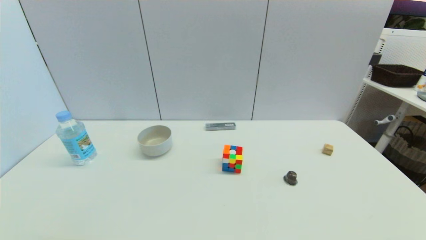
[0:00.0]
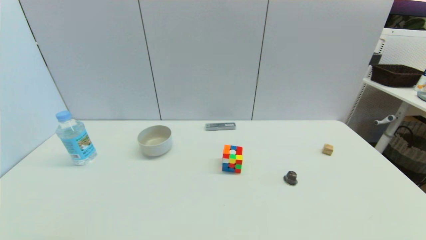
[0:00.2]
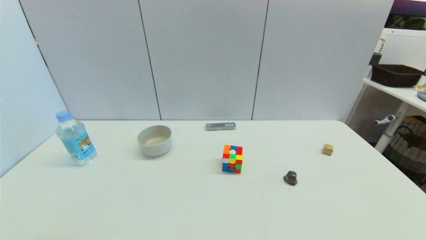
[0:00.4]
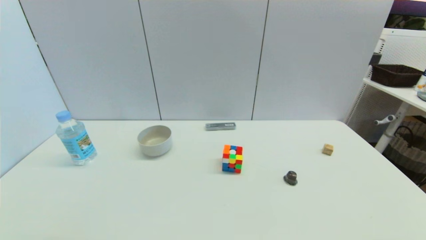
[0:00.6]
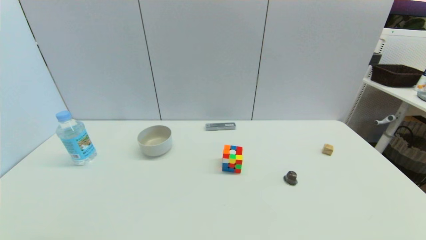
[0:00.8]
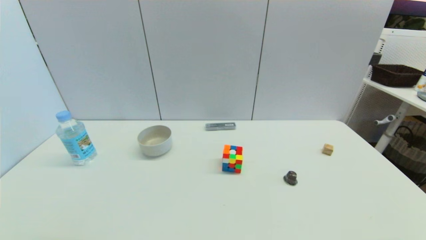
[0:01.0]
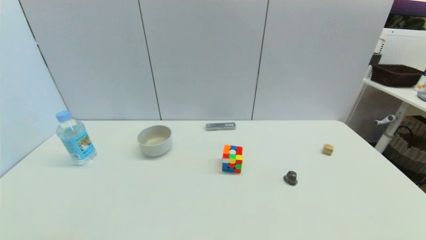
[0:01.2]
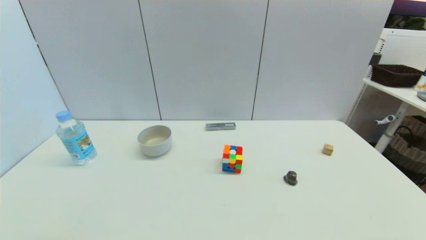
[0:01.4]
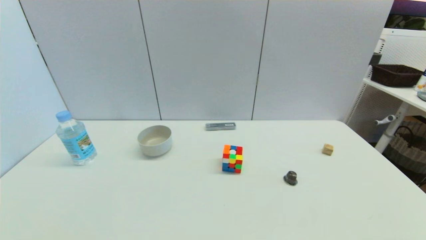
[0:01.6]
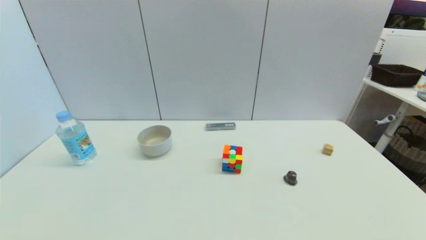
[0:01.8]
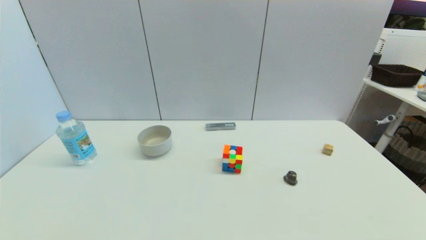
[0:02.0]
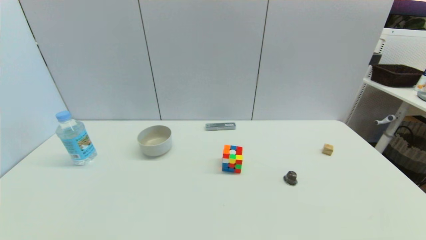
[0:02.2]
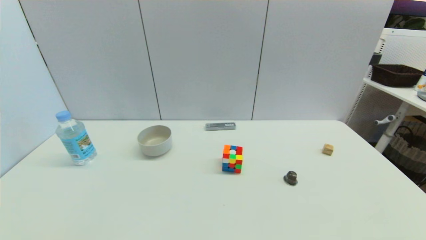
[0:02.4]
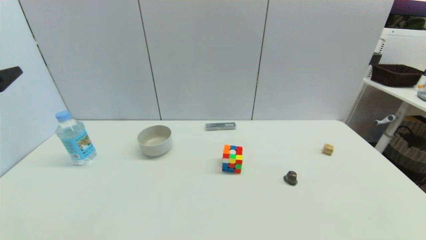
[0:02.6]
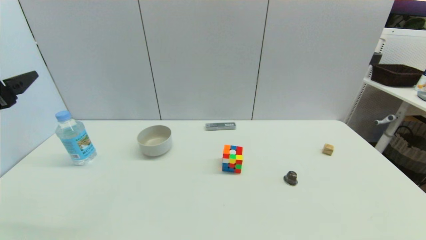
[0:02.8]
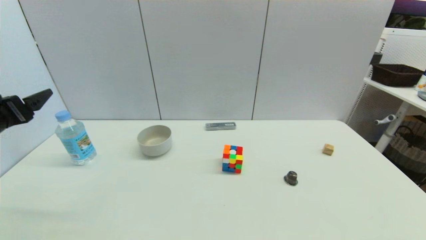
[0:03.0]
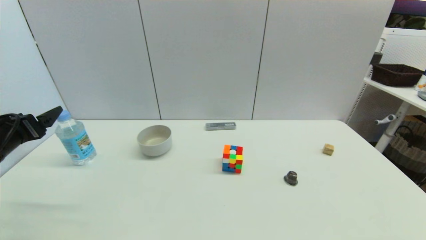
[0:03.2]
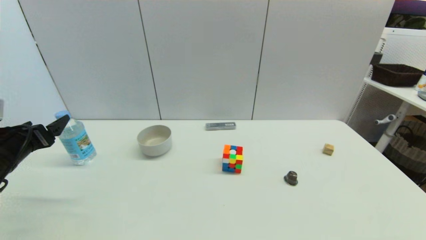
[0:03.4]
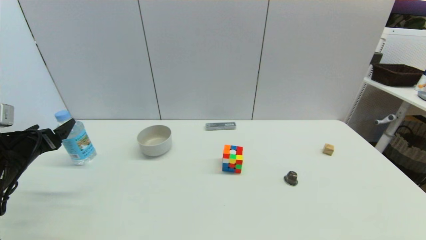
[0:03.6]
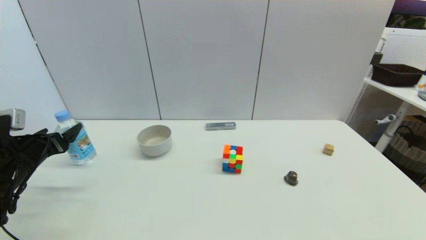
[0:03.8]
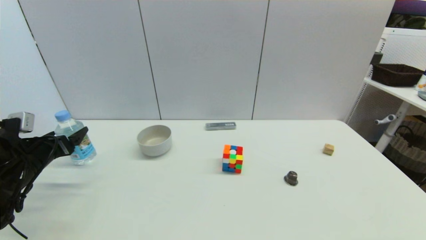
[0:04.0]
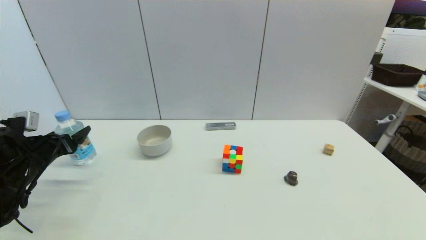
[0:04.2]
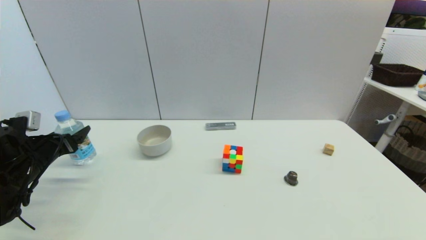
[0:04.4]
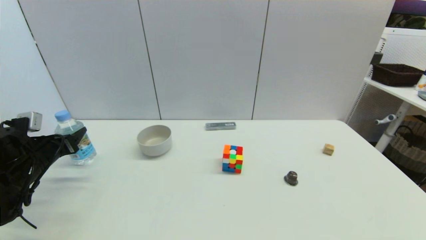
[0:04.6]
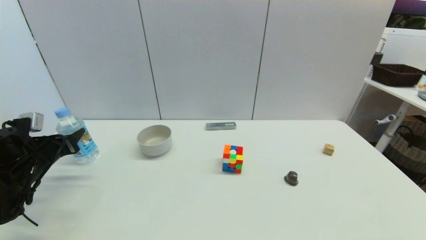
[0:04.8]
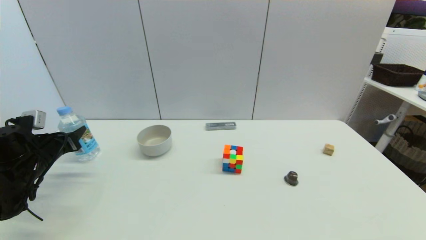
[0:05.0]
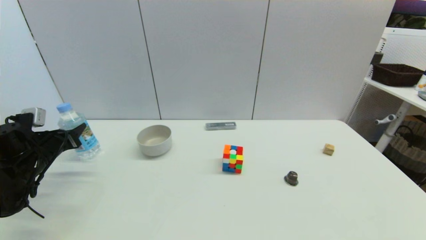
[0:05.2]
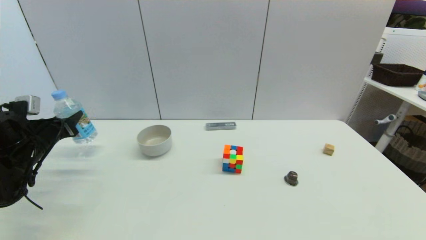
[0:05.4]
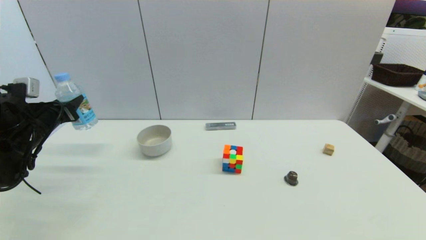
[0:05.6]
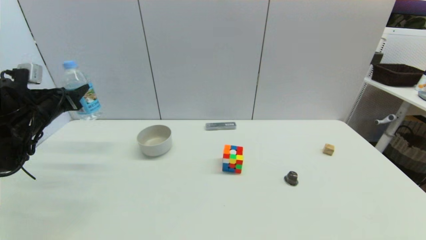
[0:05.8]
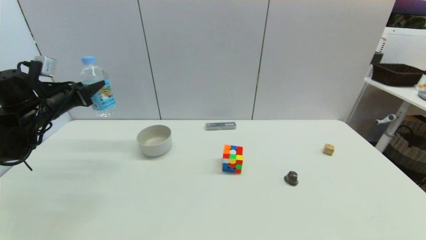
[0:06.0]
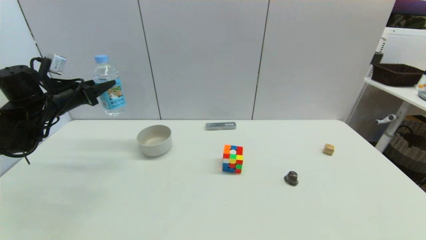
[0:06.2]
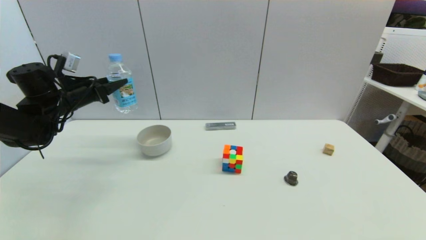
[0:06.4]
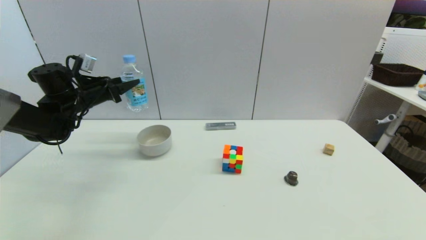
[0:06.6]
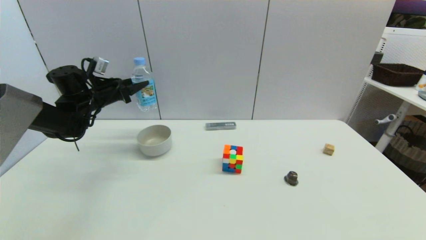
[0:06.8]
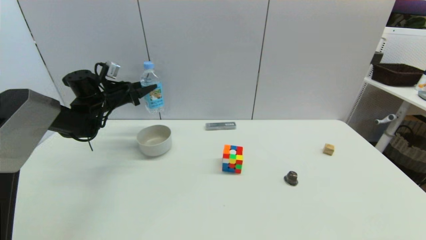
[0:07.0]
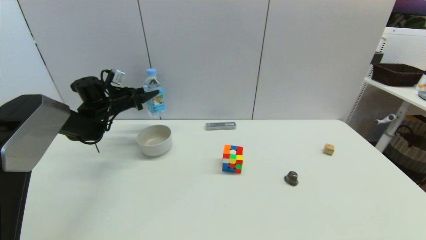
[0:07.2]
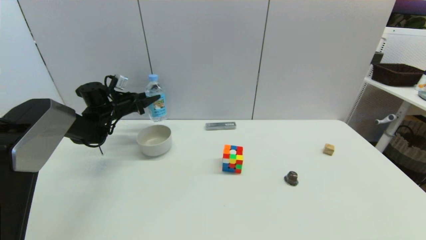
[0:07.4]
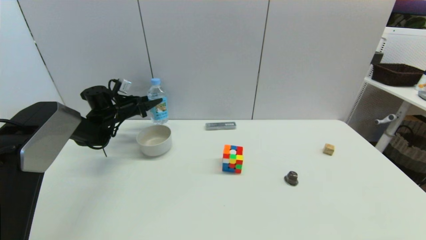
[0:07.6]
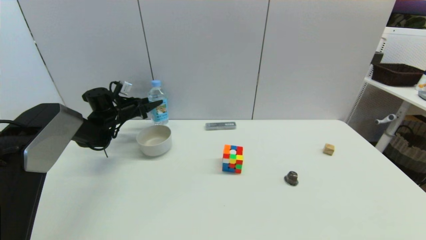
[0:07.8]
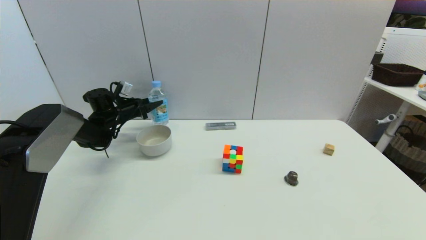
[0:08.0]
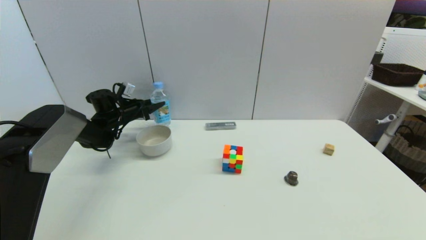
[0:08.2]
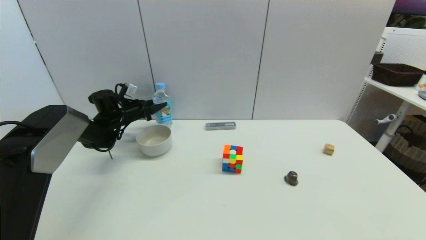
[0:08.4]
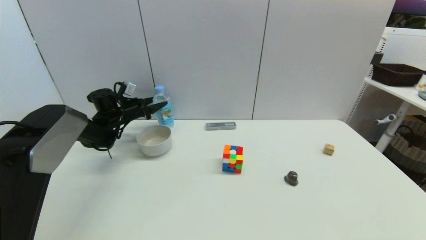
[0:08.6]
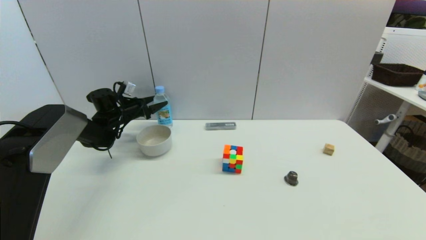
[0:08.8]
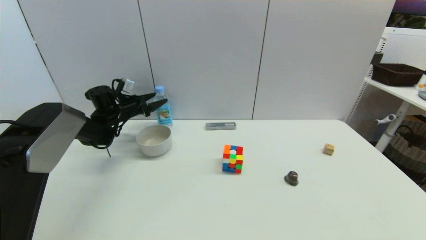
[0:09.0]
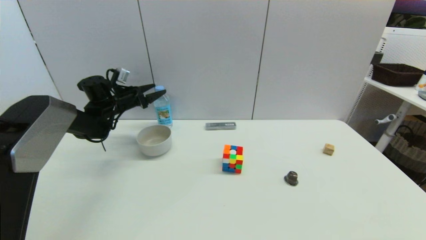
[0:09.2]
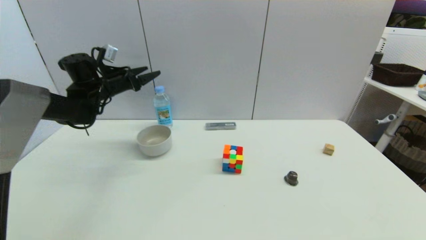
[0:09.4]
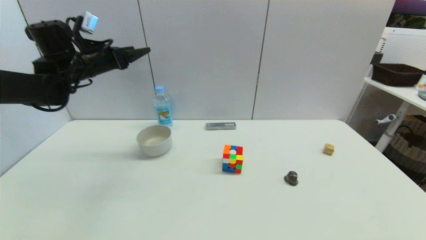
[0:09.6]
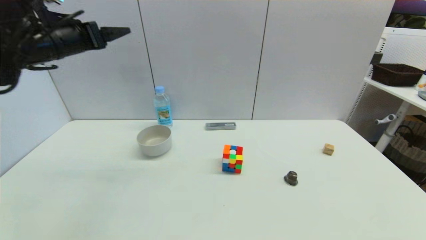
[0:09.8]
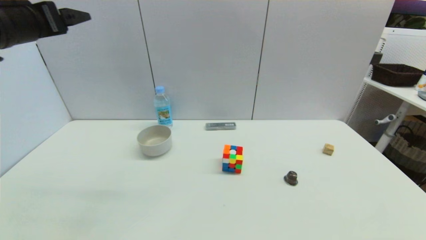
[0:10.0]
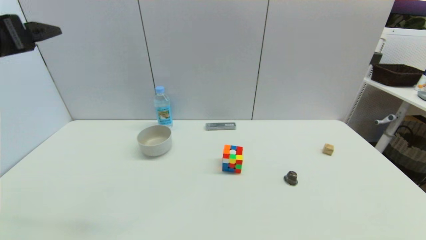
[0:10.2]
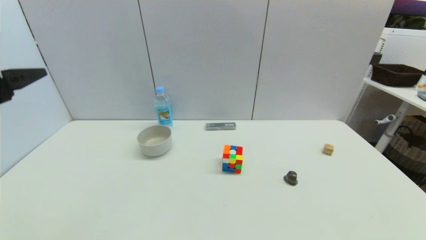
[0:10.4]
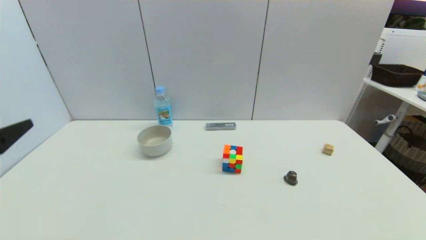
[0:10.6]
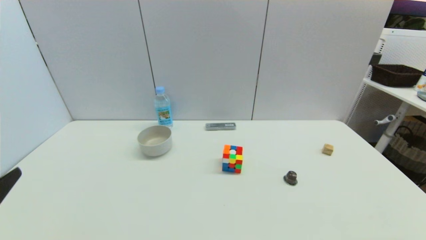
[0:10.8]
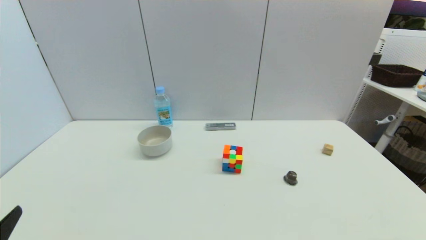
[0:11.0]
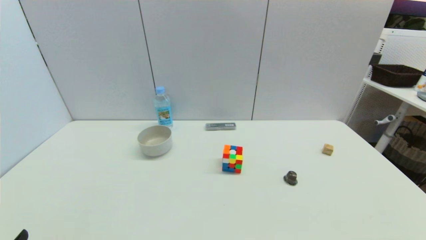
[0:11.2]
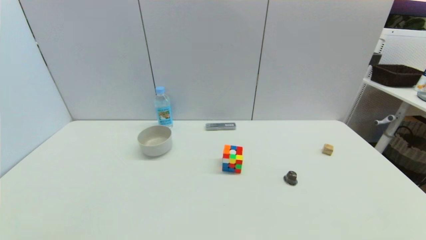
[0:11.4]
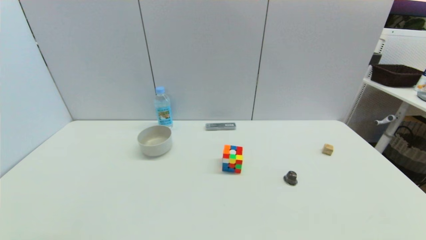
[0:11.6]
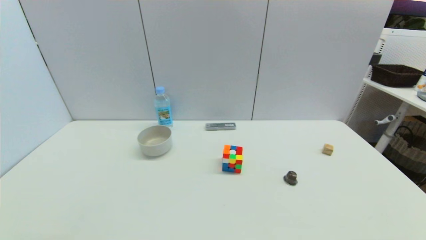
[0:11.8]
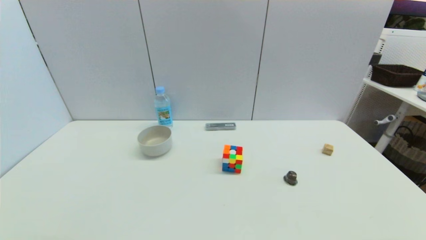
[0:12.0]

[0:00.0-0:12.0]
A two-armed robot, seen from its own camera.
Step, 0:01.6 to 0:04.8: Grasp the soda water with left gripper.
Step, 0:05.0 to 0:08.8: Place the soda water on the table with left gripper.
0:01.6 to 0:03.0: The left gripper travels forward and upward by some 25 cm.
0:03.0 to 0:04.4: The left gripper goes roughly 15 cm downward and forward.
0:04.4 to 0:06.0: The left gripper goes roughly 10 cm upward and forward, and closes its fingers.
0:06.0 to 0:07.6: The left gripper shifts approximately 20 cm forward, downward and to the right.
0:07.6 to 0:09.0: The left gripper opens.
0:09.0 to 0:10.4: The left gripper travels backward and upward by some 40 cm.
0:10.4 to 0:12.0: The left gripper shifts roughly 30 cm downward and backward.

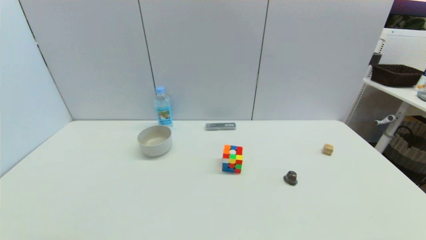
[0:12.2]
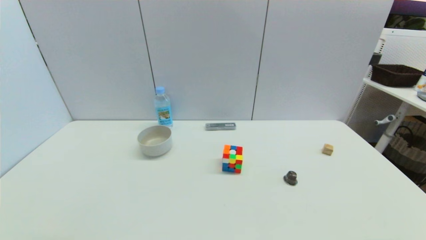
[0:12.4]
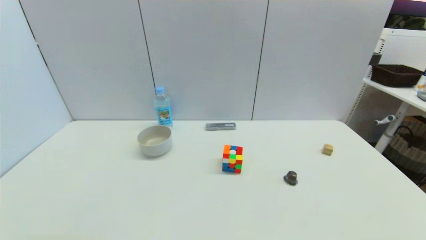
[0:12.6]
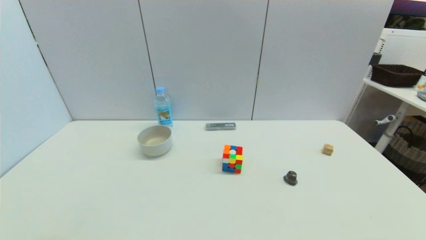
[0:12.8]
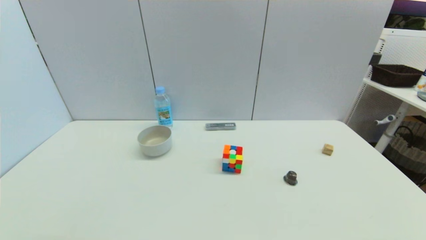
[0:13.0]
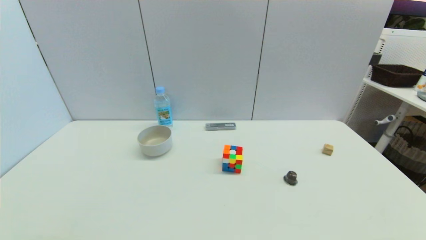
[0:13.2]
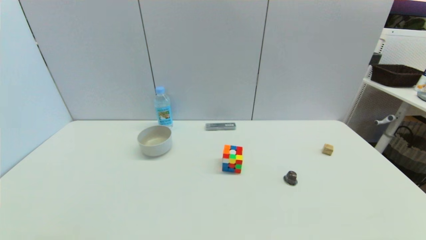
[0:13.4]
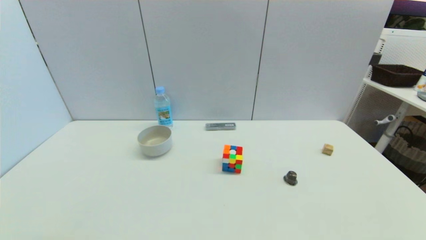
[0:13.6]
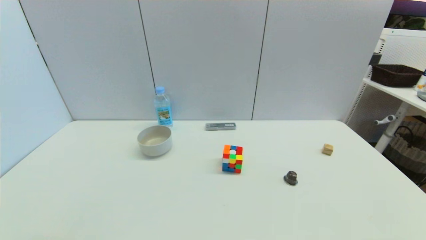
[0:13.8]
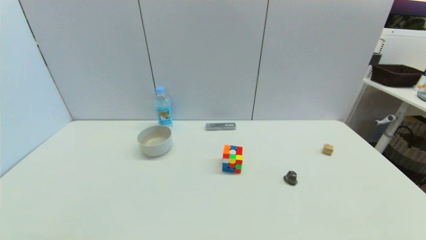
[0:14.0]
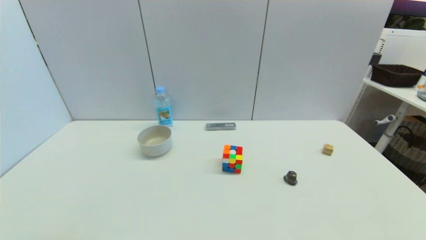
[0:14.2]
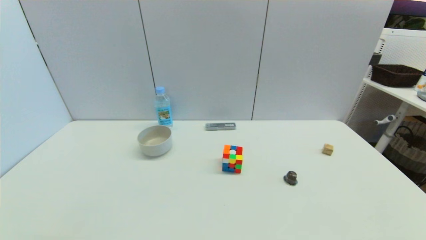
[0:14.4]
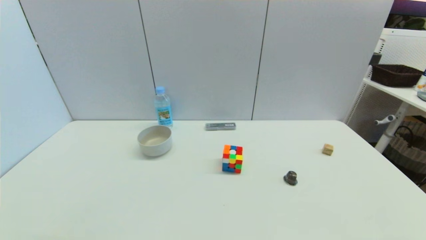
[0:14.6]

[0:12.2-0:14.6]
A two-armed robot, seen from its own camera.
0:12.2 to 0:14.6: The two grippers keep their place.

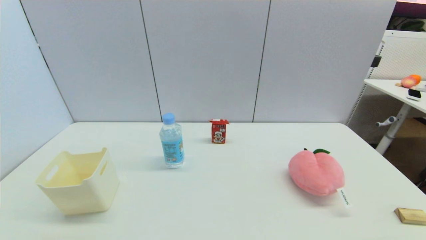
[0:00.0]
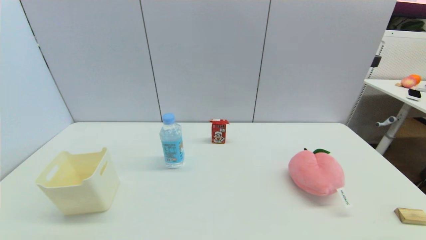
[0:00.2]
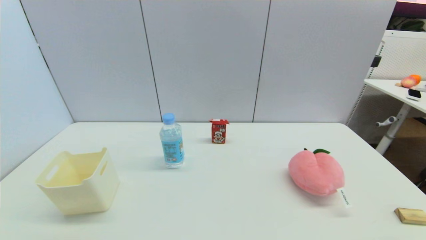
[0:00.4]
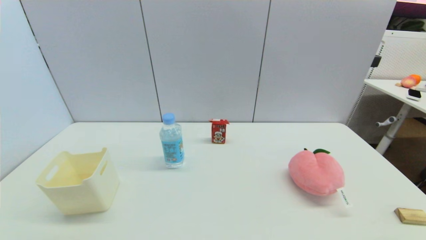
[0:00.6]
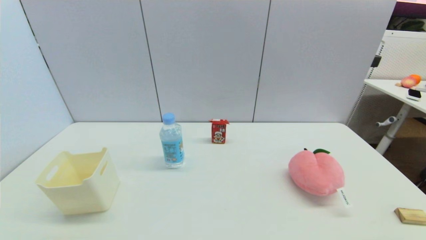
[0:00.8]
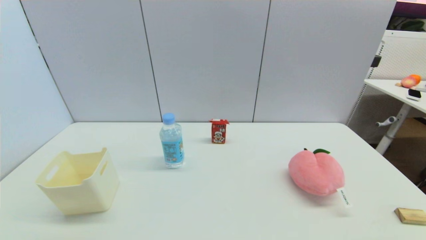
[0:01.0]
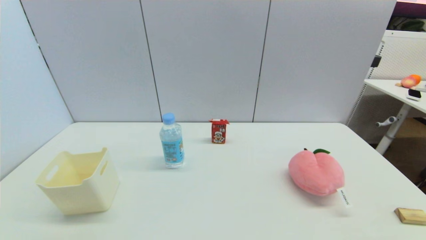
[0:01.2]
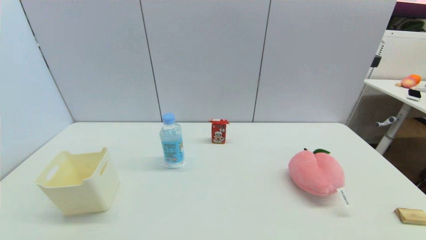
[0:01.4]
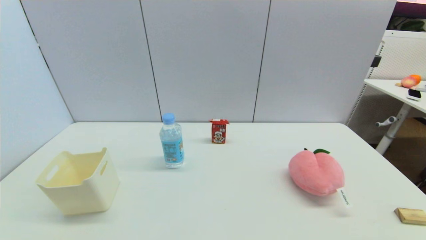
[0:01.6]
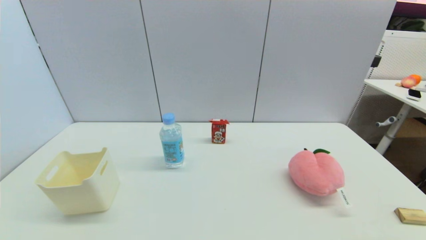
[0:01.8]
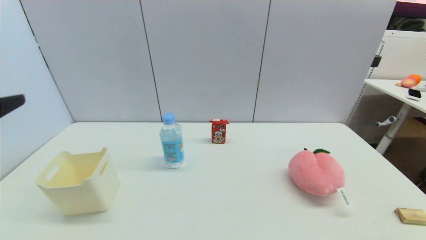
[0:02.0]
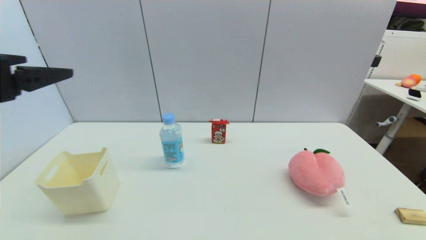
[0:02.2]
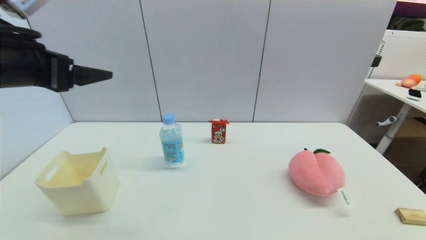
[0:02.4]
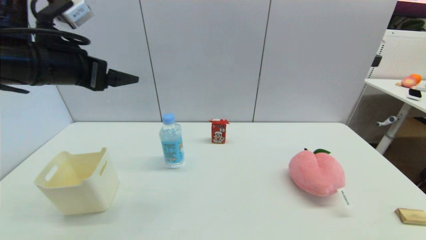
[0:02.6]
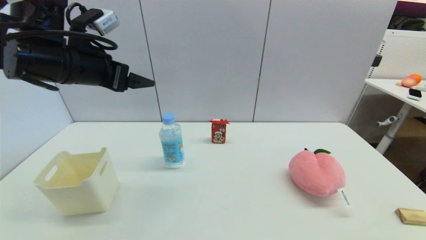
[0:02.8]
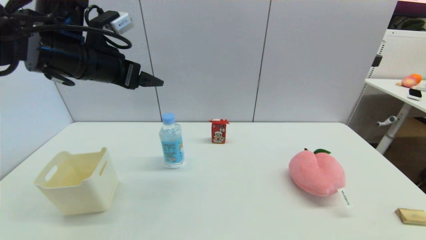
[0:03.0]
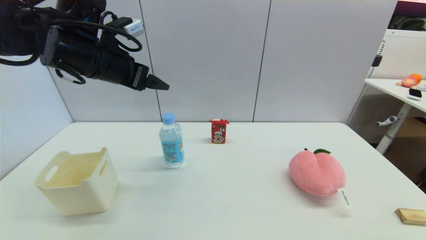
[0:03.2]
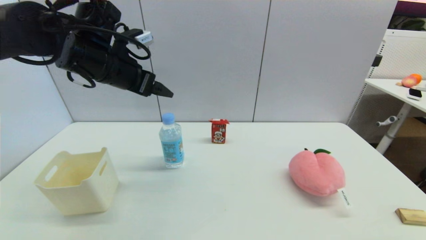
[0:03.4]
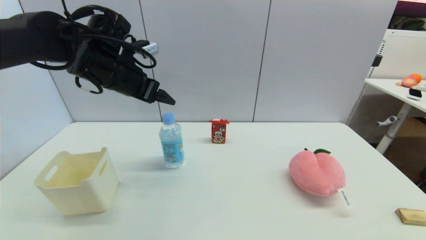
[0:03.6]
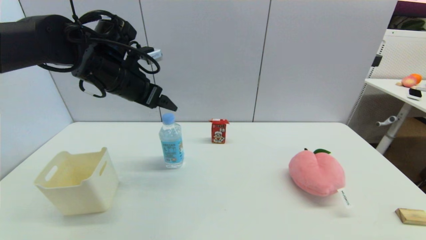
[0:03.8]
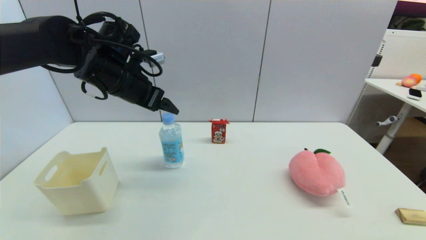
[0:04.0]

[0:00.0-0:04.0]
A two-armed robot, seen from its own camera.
0:01.4 to 0:02.6: The left gripper is displaced forward and upward by approximately 35 cm.
0:02.6 to 0:04.0: The left gripper heads forward and to the right, covering approximately 10 cm.
